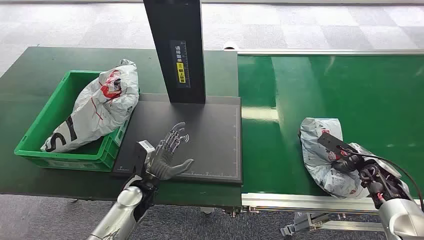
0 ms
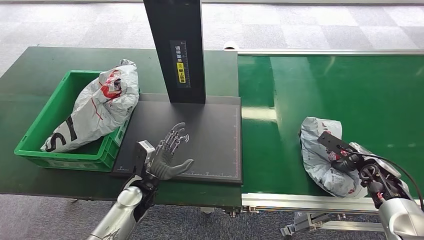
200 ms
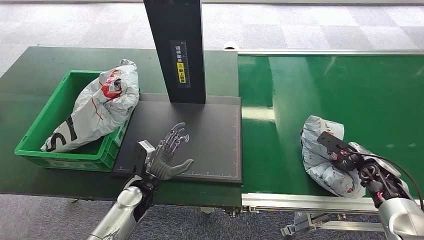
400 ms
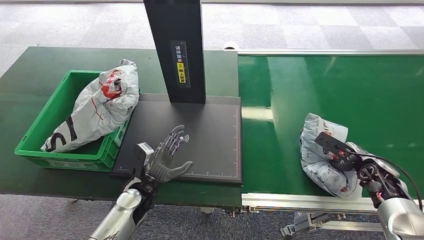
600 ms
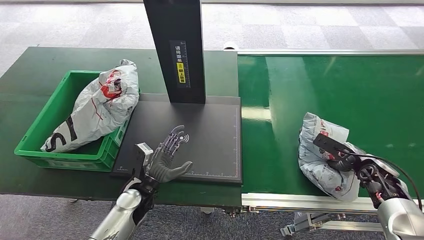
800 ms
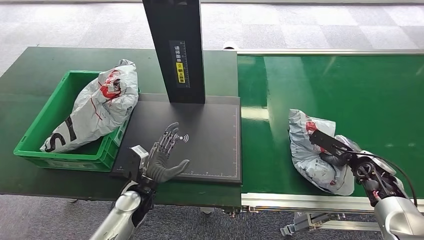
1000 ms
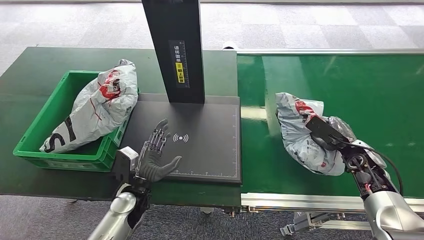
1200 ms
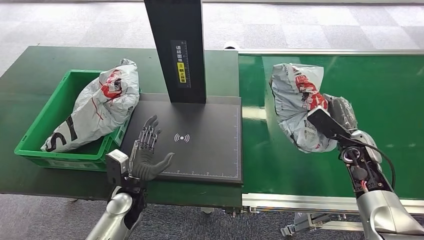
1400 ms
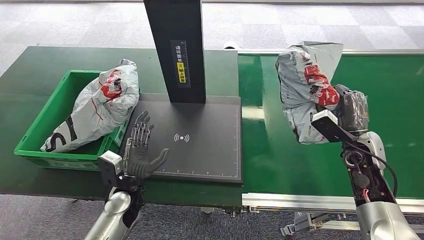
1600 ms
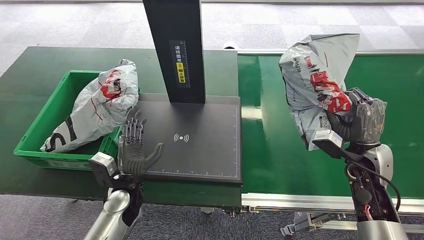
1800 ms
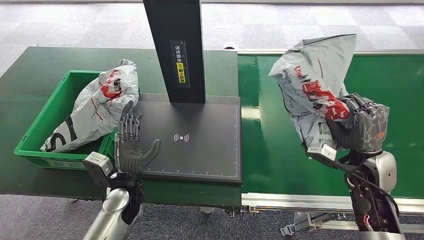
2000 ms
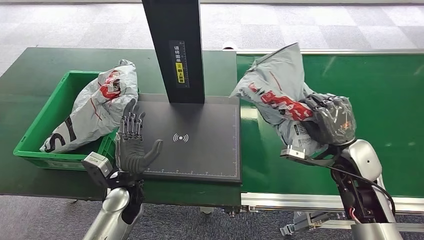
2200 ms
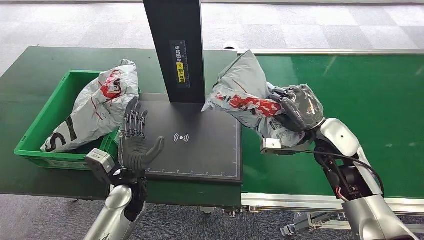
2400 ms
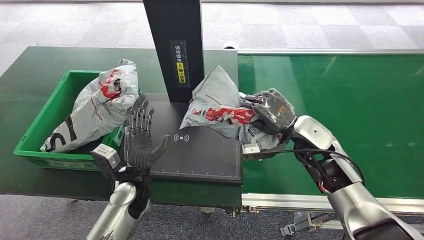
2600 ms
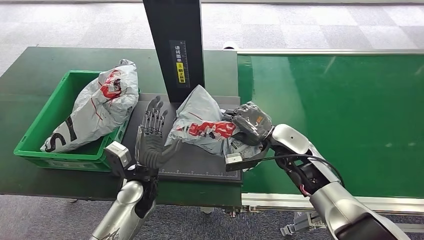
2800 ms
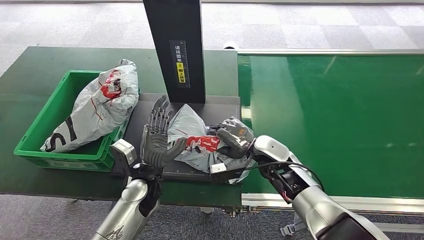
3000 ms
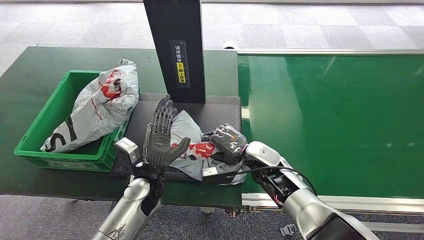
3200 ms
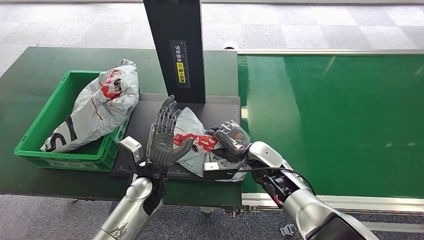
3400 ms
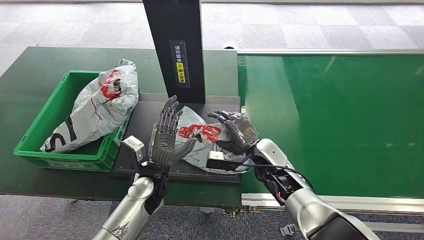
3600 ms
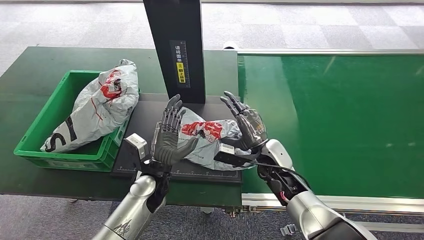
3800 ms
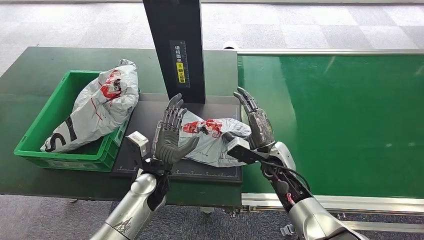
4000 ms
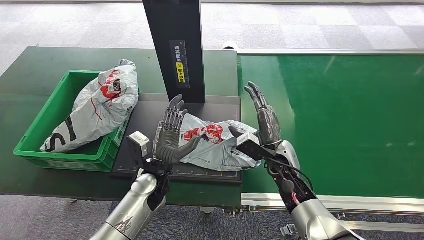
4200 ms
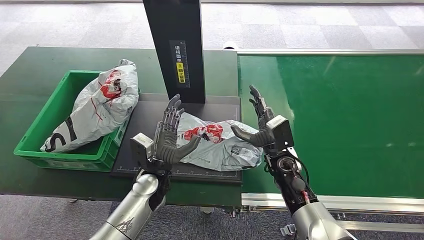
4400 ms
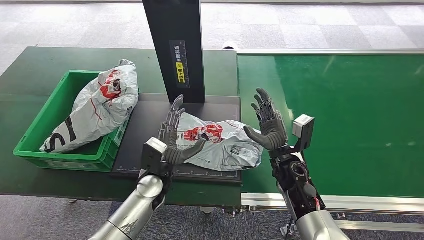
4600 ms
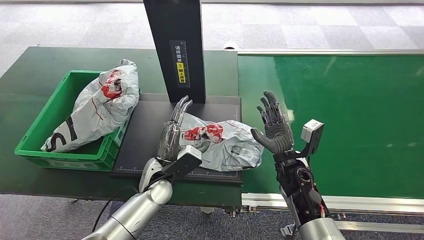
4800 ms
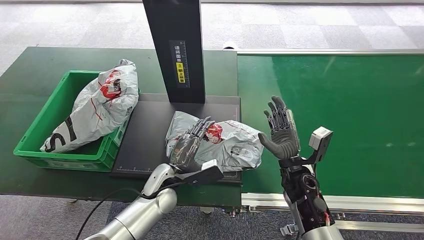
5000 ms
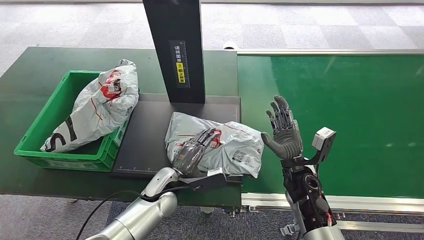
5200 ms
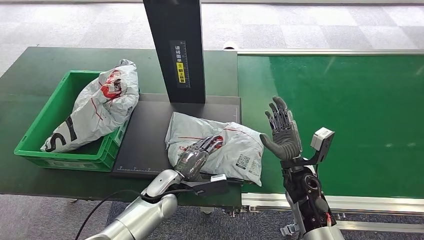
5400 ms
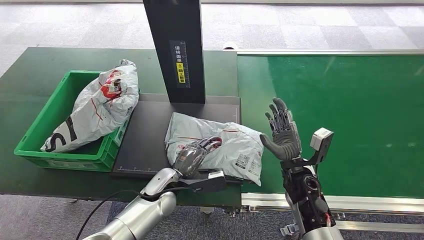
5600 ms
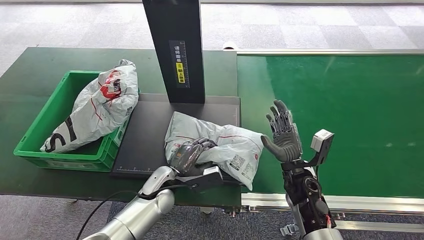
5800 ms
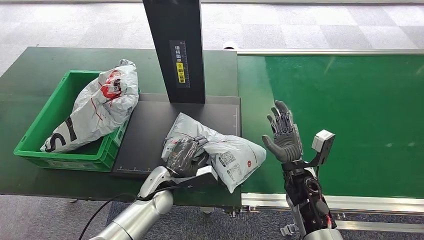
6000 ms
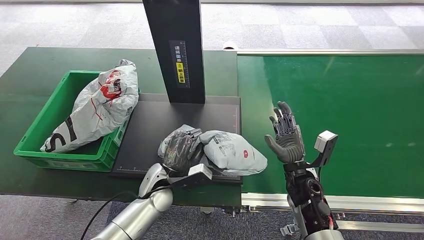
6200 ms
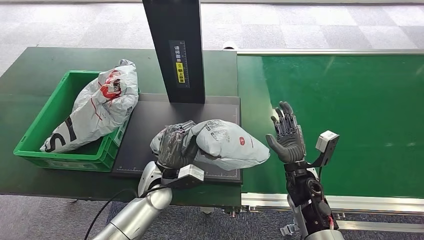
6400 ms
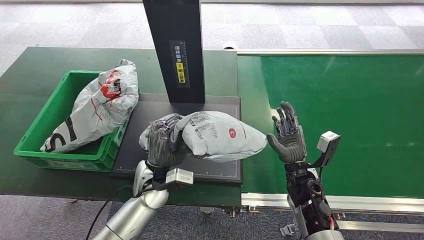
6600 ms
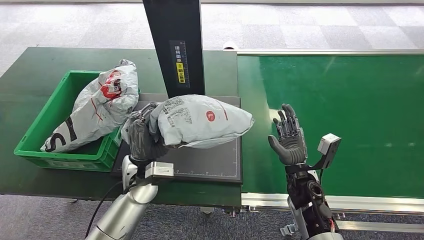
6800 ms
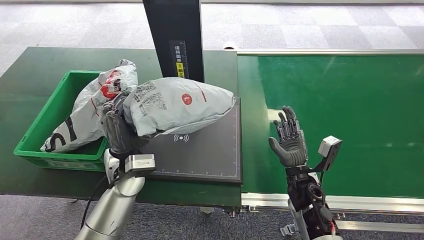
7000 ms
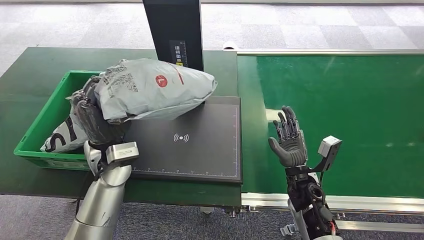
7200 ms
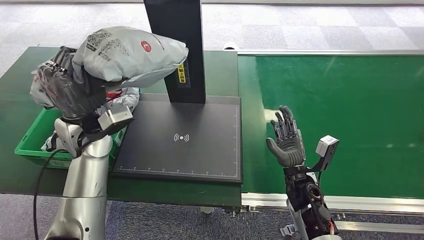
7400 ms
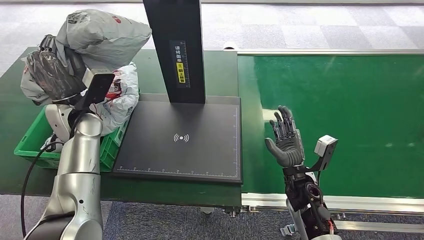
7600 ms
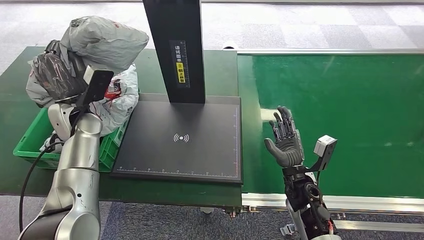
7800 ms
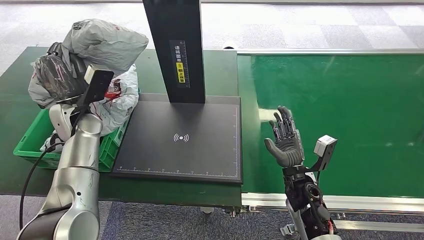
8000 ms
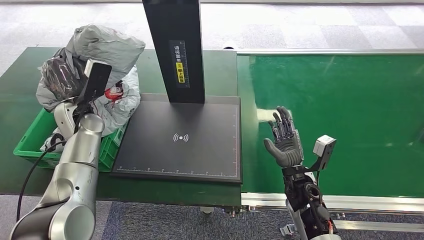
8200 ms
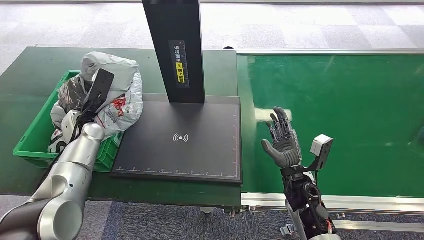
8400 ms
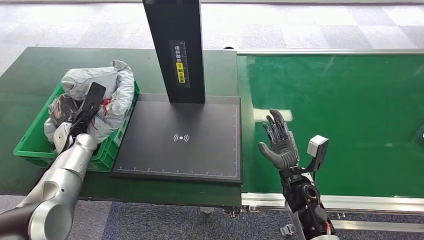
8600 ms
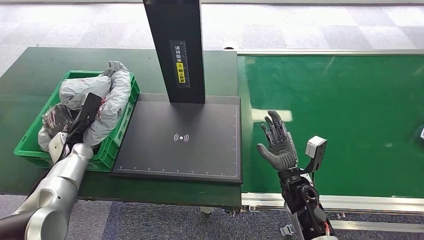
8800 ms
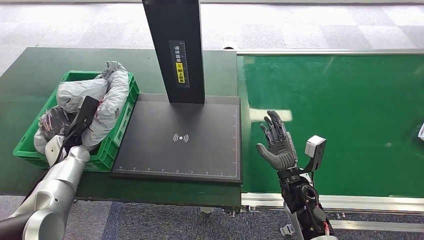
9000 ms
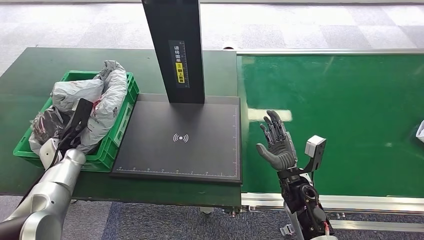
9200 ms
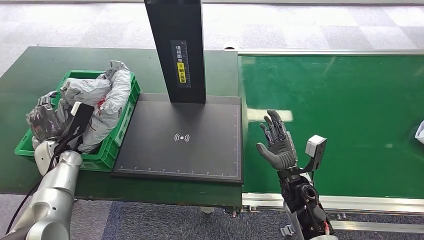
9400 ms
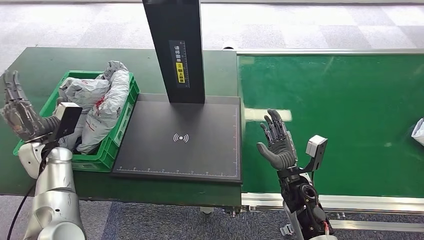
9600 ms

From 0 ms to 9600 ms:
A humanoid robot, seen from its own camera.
Step, from 0 ms to 1400 ms: Pick up the package from the conveyor belt.
Step, from 1600 ms to 4000 ms: Place the package onto the inbound machine.
Step, from 4200 ms to 7400 ms: Pick up the package from the inbound machine.
Step, from 7600 ms to 9600 ms: Place the package into the parcel locker.
